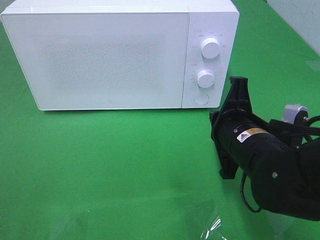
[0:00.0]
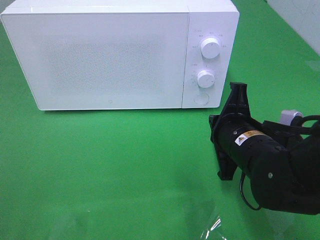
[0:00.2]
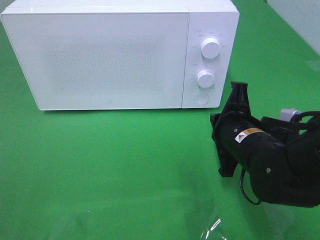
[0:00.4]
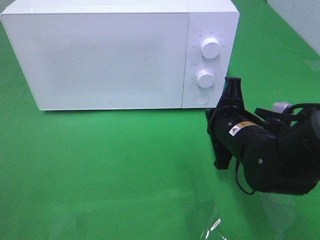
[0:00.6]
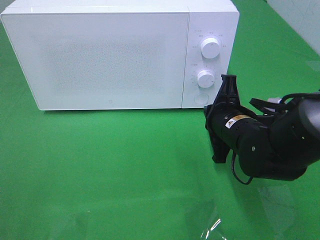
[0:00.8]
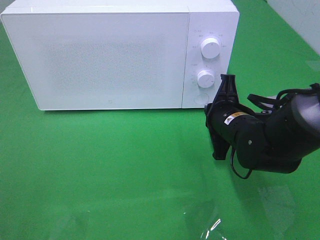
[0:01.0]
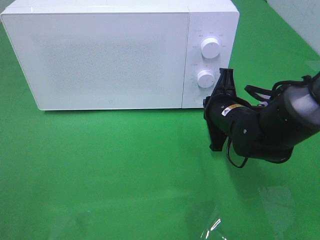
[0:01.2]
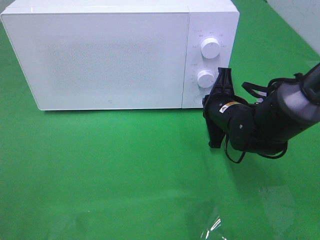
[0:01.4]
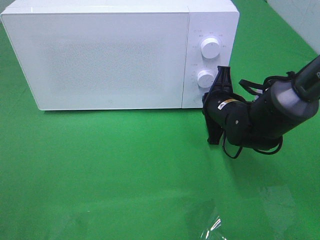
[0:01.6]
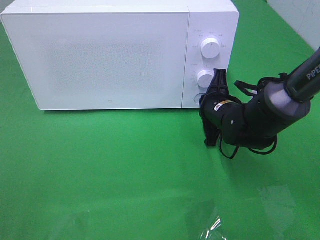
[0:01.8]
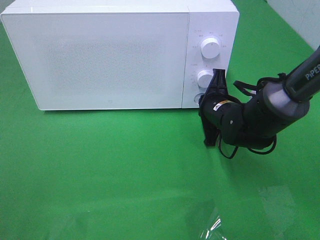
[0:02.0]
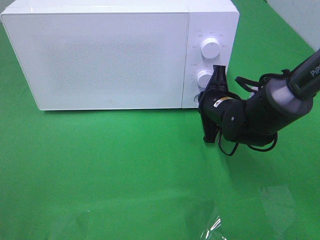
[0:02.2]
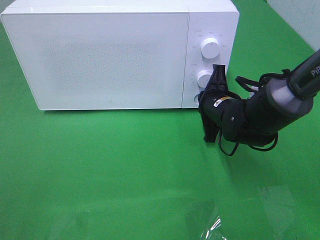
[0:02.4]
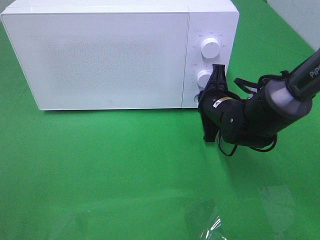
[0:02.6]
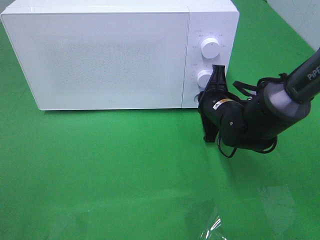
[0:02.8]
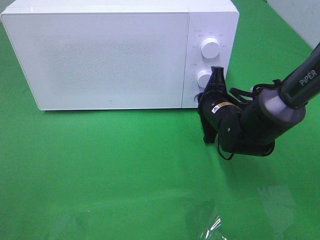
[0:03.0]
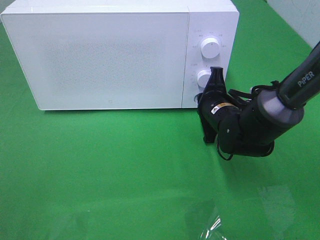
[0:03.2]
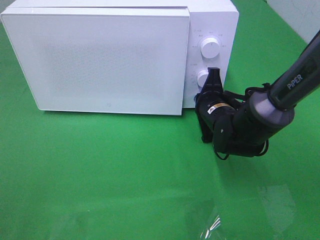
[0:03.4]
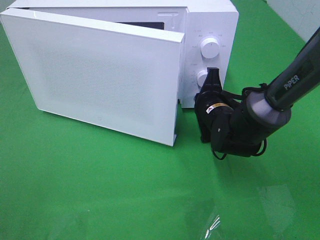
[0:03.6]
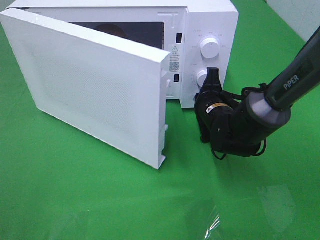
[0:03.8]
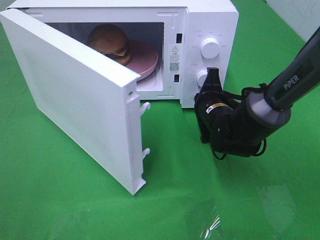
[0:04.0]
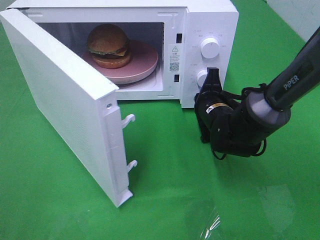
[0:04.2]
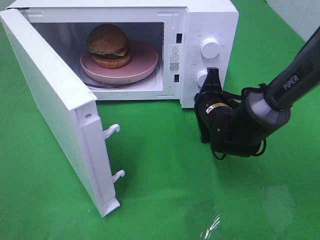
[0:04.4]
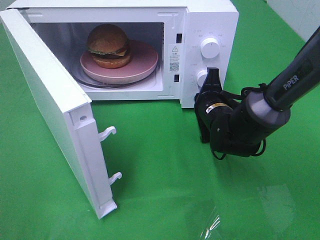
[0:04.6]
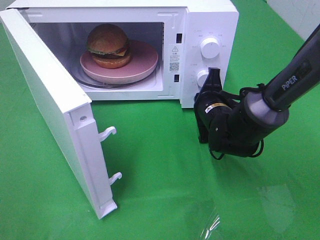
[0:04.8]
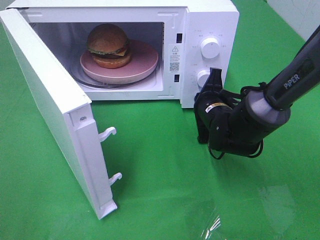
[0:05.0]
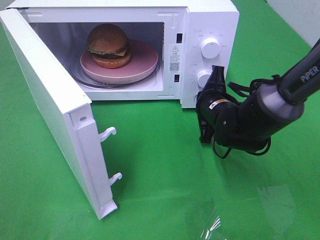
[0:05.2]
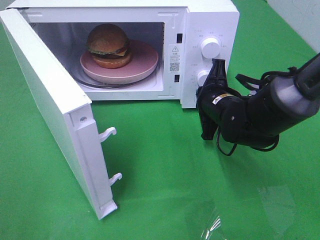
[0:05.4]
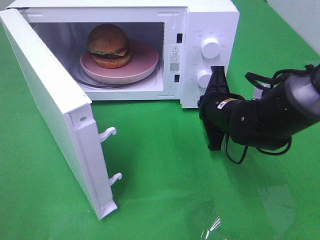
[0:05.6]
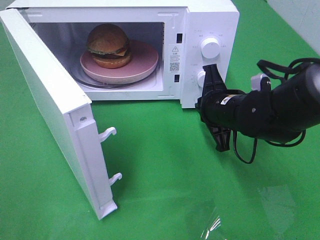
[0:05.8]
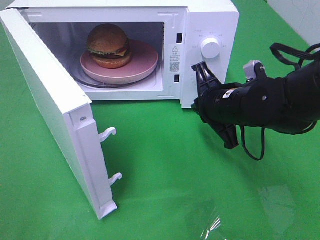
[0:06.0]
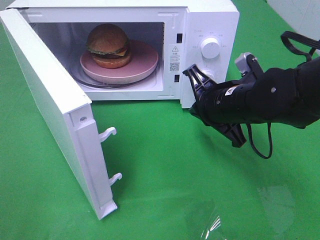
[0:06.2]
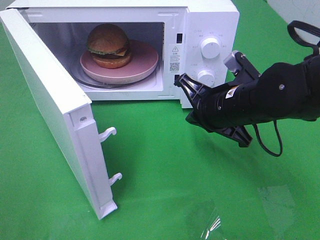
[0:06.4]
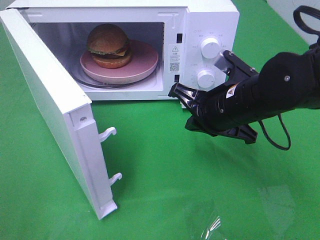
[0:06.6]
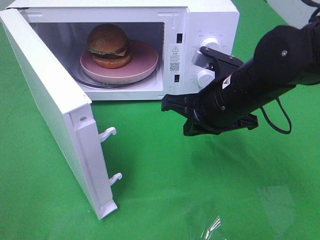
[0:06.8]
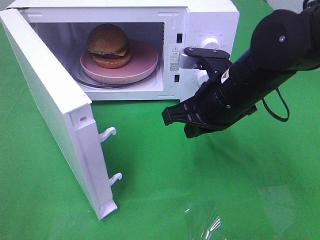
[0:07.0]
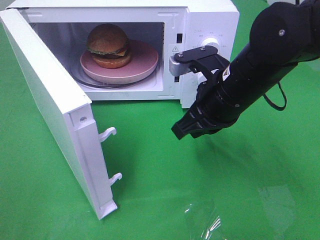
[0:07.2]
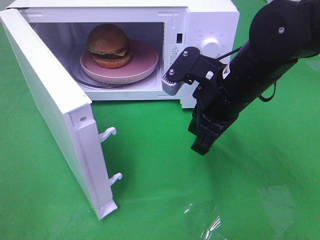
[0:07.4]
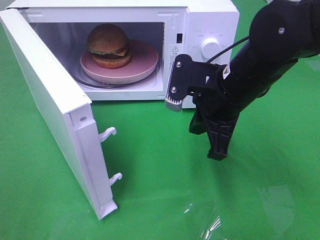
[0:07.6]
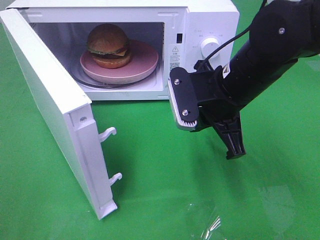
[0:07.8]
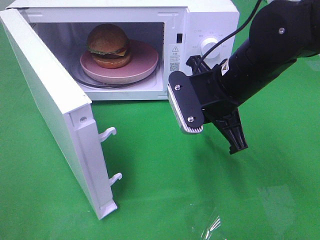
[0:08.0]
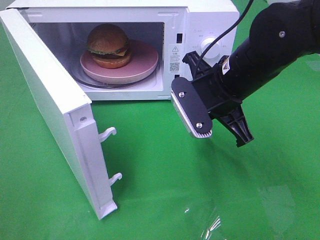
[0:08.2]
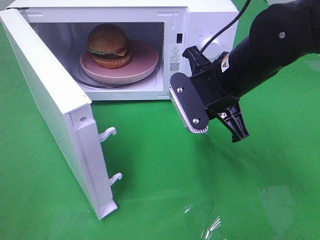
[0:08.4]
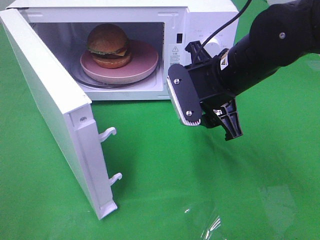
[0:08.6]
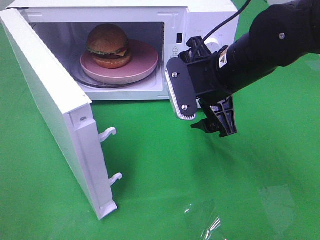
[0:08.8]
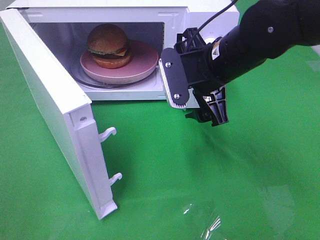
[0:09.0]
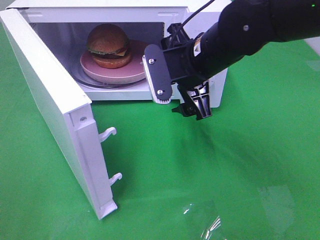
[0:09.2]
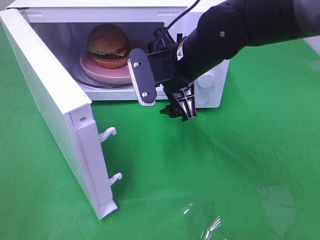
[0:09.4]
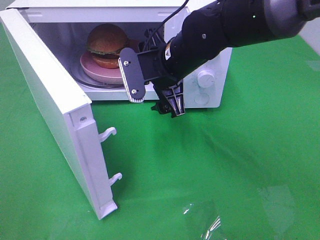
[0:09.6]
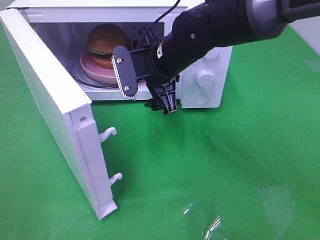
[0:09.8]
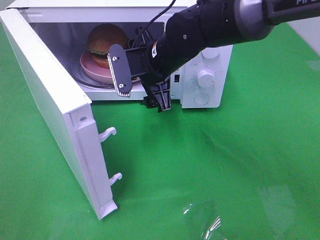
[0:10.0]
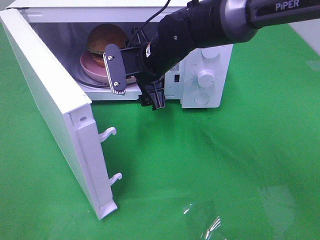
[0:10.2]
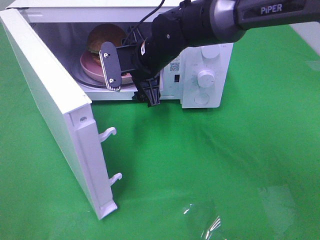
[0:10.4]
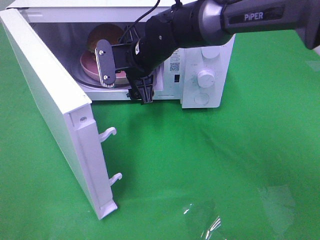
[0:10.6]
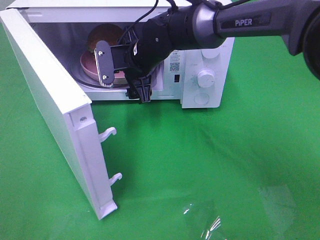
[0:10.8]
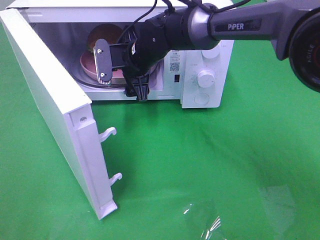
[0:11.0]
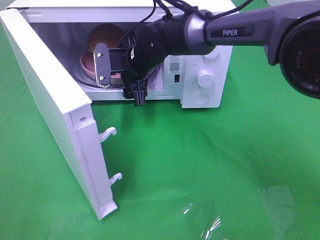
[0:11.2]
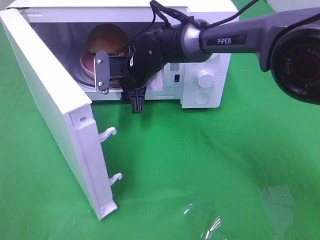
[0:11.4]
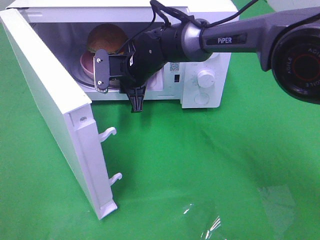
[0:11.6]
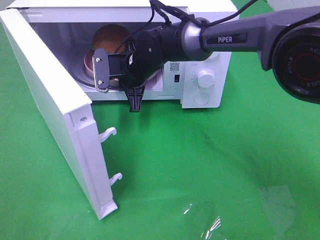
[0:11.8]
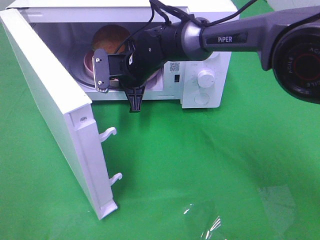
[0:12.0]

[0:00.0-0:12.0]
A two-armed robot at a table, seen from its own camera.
Task of the whole recording: Heat the burger.
Step, 0:00.0 to 0:05.6: Right hand: press the switch.
Step, 0:05.8 to 0:11.6: Right hand: grab the plate with the hamburger.
0:00.0 to 0:01.6: The right gripper is displaced forward and downward by roughly 15 cm.
0:01.6 to 0:03.0: The grippers stay close to where they were, moving slightly.
0:04.4 to 0:06.0: The right gripper heads upward and backward, covering about 10 cm.
0:06.0 to 0:07.6: The right gripper goes approximately 5 cm upward.
0:07.6 to 0:09.0: The right gripper opens up.
0:09.0 to 0:10.4: The right gripper heads to the left and forward, covering about 15 cm.
0:10.4 to 0:12.0: The right gripper shifts by approximately 5 cm, and closes its fingers.

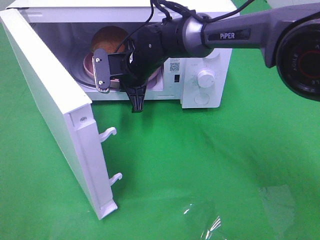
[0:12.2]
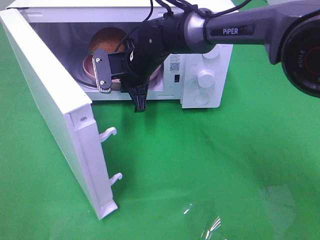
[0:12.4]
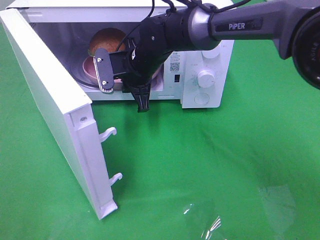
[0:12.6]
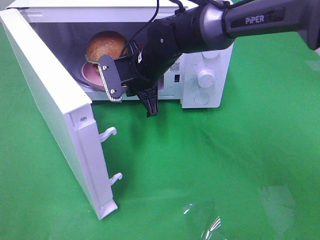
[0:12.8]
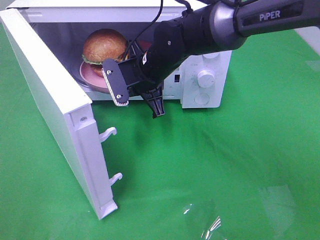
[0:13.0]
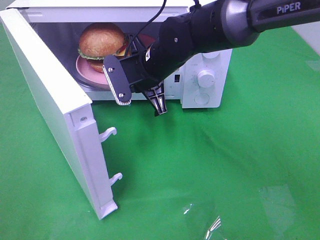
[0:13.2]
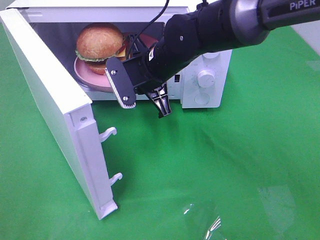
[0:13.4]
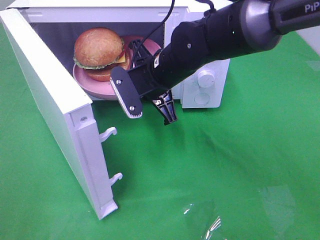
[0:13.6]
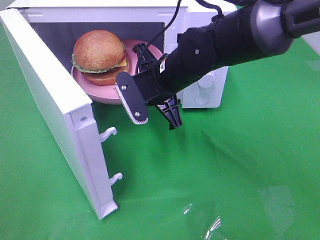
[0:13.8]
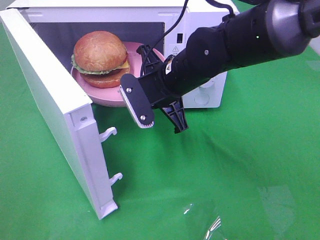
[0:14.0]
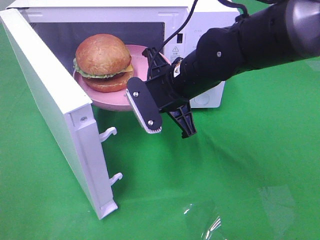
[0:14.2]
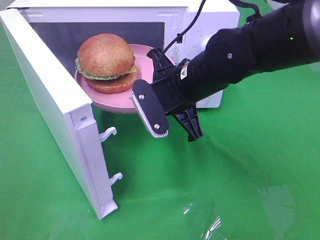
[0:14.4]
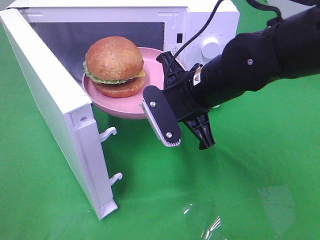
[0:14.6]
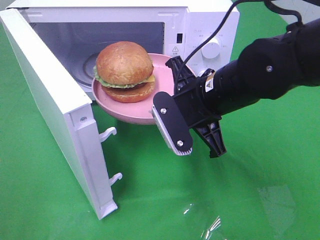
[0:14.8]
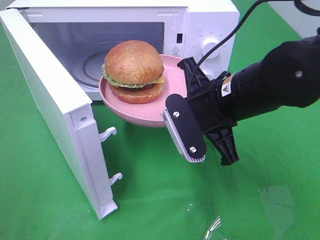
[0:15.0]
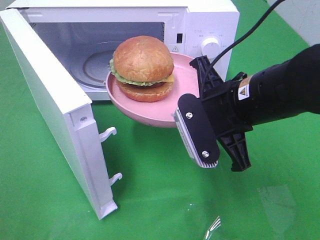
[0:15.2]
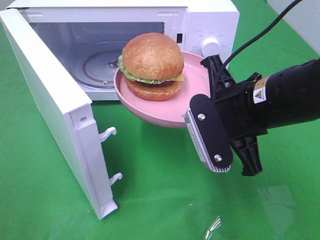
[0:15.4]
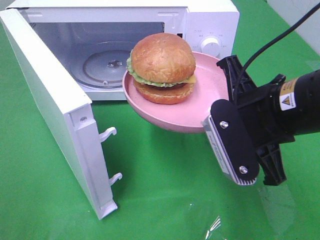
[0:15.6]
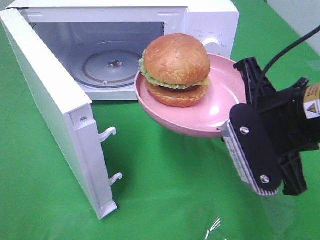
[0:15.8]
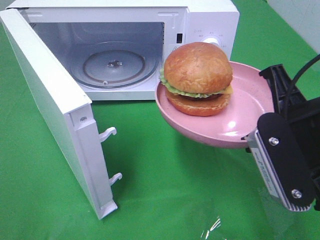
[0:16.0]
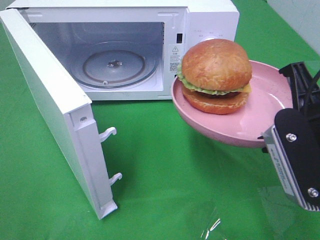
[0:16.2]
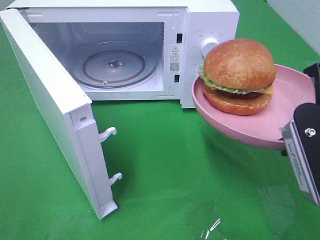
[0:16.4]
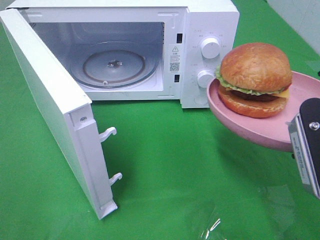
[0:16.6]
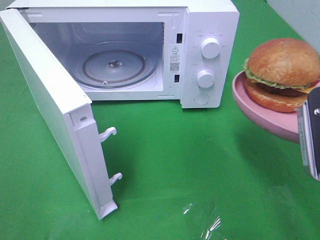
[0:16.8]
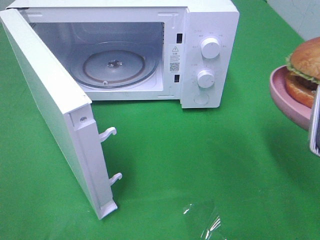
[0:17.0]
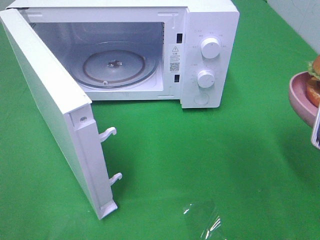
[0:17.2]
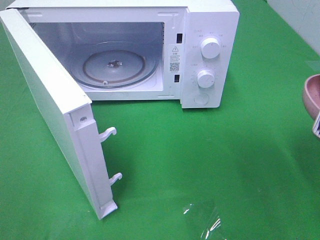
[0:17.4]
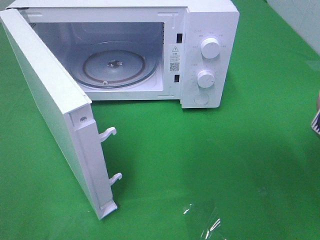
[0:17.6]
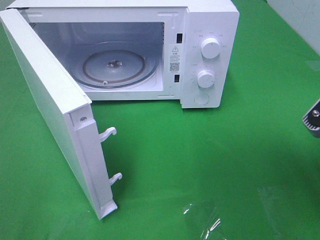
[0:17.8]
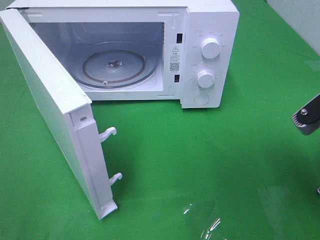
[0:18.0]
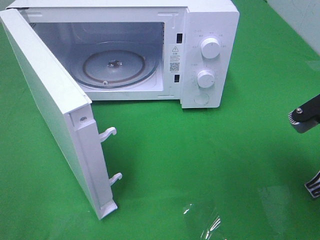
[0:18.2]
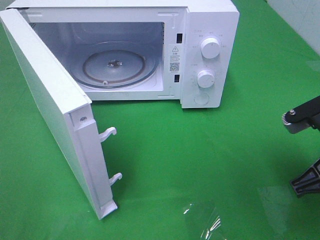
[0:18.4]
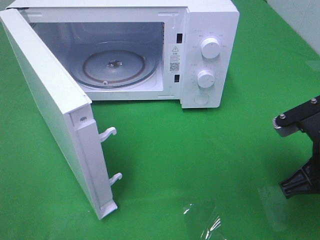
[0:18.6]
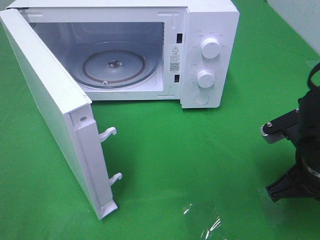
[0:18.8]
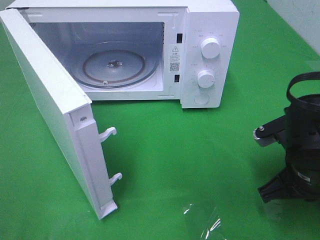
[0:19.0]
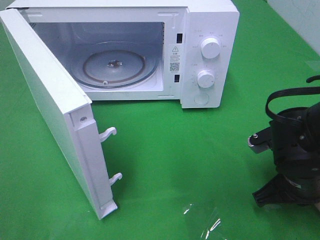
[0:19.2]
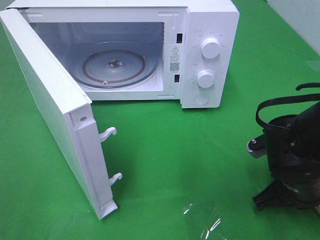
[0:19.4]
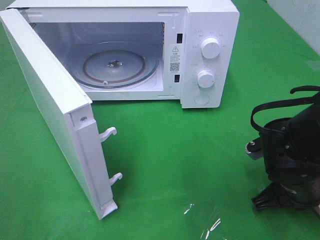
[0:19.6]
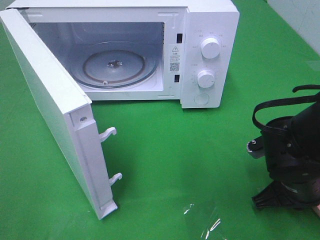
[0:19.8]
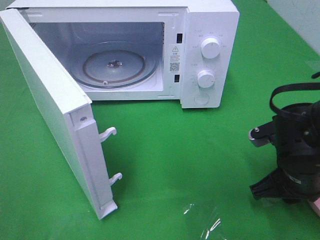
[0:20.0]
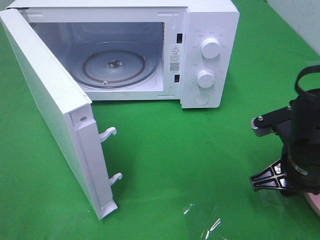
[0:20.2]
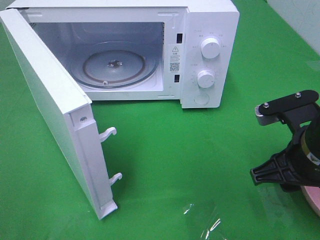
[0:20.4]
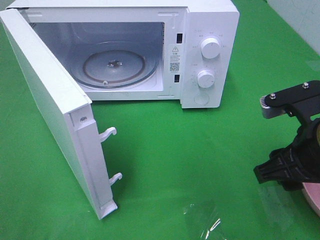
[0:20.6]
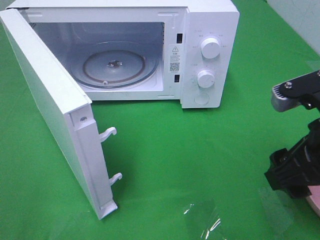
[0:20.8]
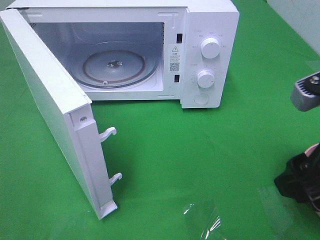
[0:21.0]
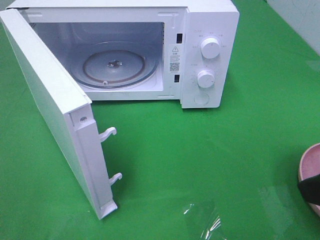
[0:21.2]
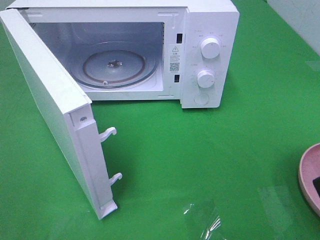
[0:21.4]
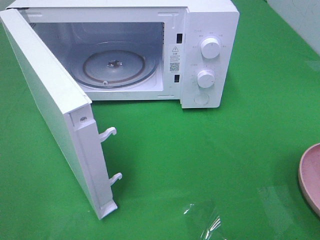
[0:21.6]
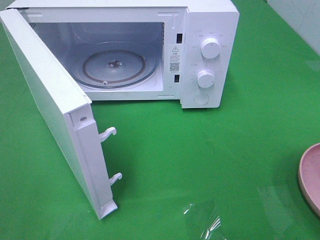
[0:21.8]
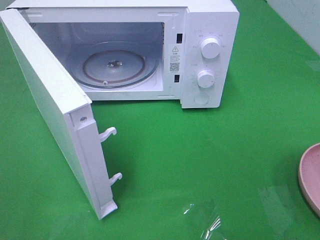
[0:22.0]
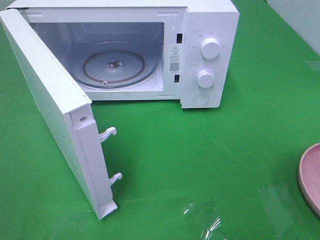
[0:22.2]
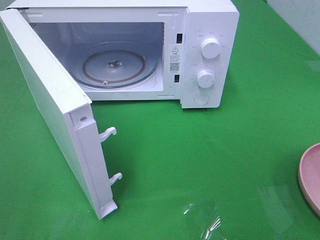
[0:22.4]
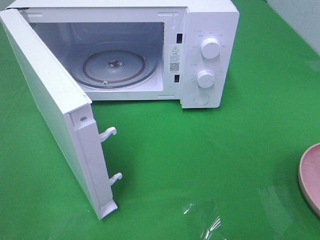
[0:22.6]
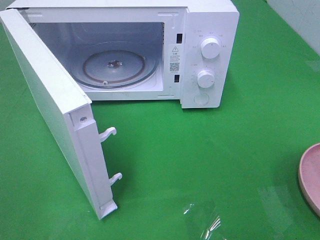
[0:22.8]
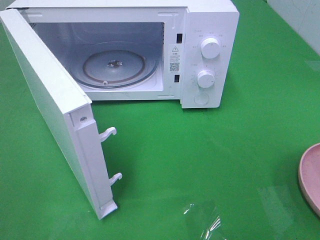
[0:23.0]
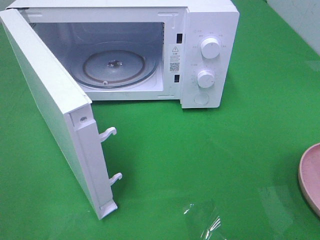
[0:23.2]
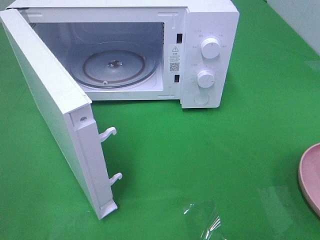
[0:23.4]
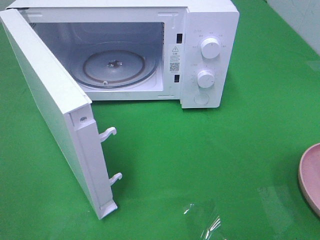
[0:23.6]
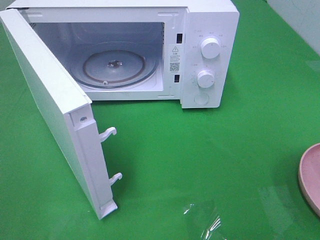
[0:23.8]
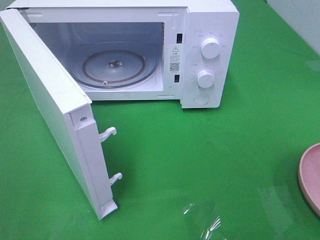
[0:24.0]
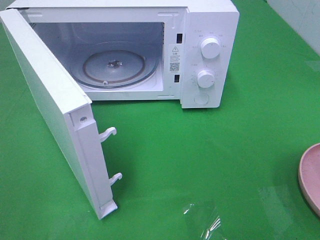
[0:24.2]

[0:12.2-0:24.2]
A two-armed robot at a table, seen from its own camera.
Task of the whole recording: Heat the burger.
Step, 0:12.2 to 0:20.4: Right hand: place the plate on the table.
0:12.2 to 0:13.8: The right gripper is displaced backward and to the right by about 10 cm.
0:13.8 to 0:15.2: The right gripper moves backward and to the right, about 15 cm.
0:15.2 to 0:16.6: The right gripper goes roughly 15 cm to the right and backward.
0:16.6 to 0:18.2: The right gripper shifts approximately 5 cm downward.
0:18.2 to 0:19.8: The right gripper heads downward, covering approximately 10 cm.
0:19.8 to 0:21.2: The right gripper is displaced upward and backward by approximately 20 cm, and opens.
0:21.2 to 0:22.6: The right gripper moves backward and to the right, about 10 cm.
0:22.6 to 0:24.2: Both grippers stay about where they are.
